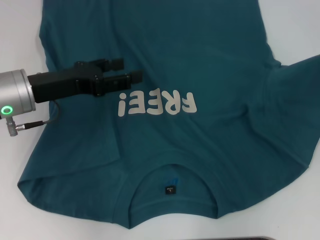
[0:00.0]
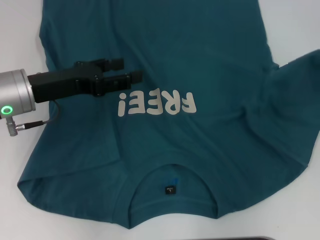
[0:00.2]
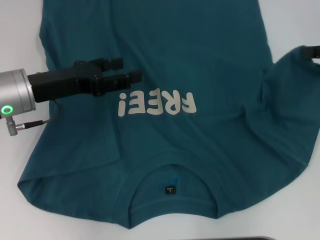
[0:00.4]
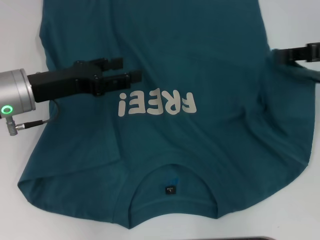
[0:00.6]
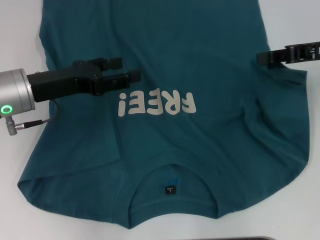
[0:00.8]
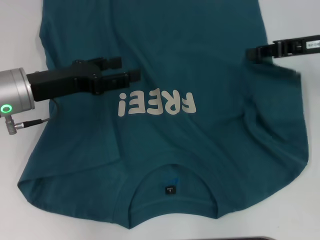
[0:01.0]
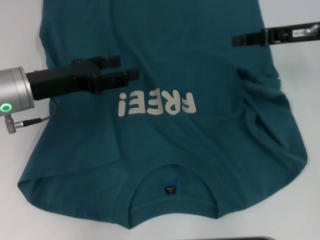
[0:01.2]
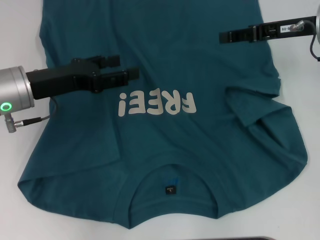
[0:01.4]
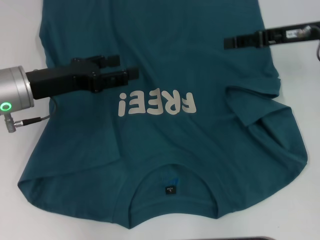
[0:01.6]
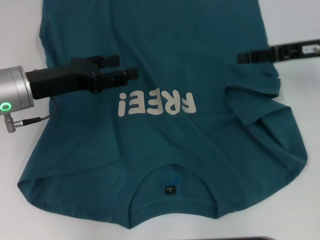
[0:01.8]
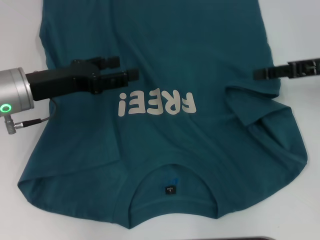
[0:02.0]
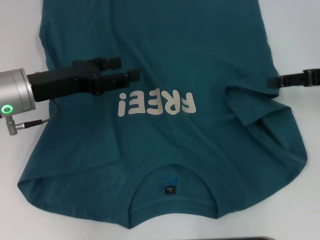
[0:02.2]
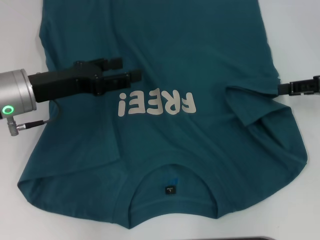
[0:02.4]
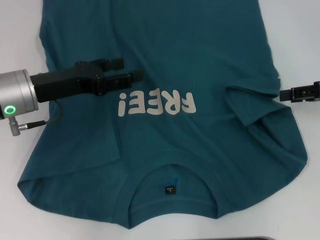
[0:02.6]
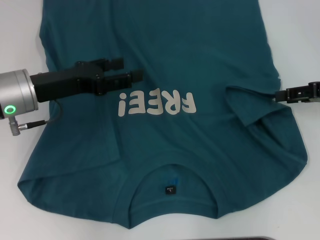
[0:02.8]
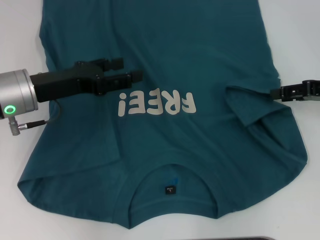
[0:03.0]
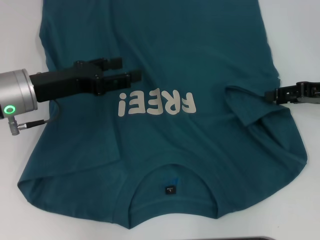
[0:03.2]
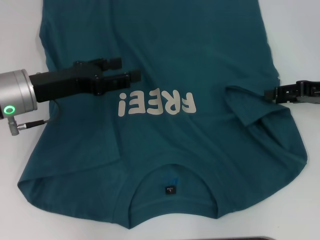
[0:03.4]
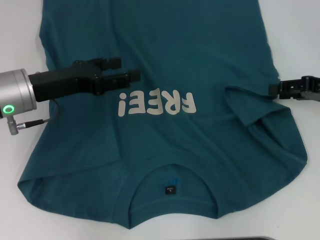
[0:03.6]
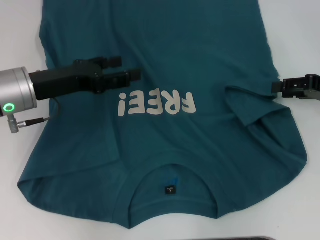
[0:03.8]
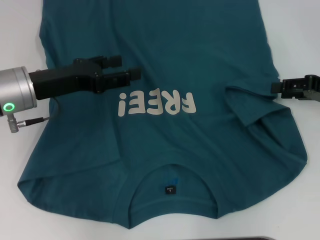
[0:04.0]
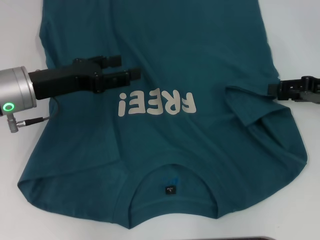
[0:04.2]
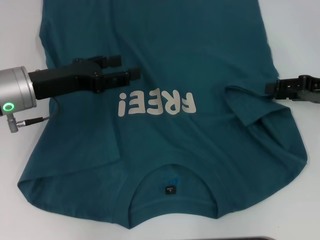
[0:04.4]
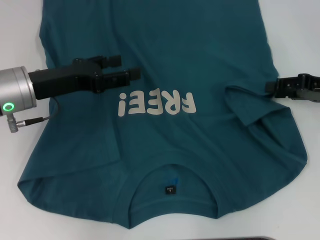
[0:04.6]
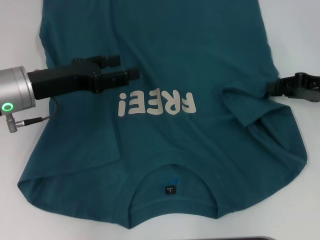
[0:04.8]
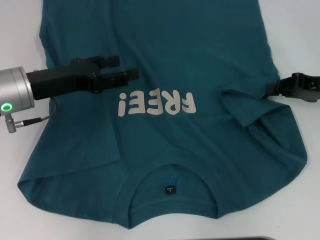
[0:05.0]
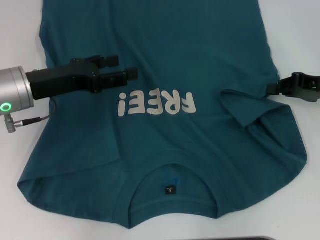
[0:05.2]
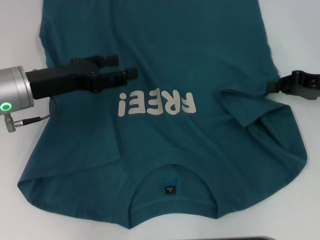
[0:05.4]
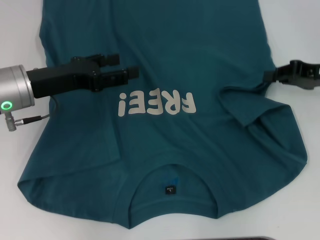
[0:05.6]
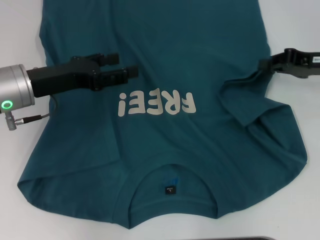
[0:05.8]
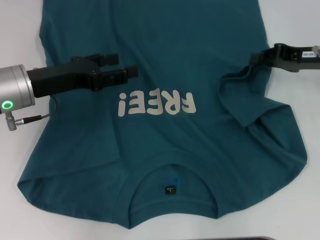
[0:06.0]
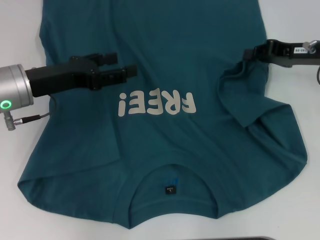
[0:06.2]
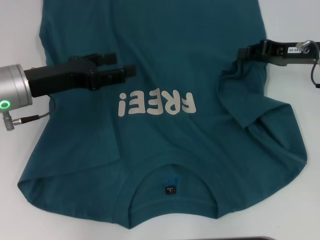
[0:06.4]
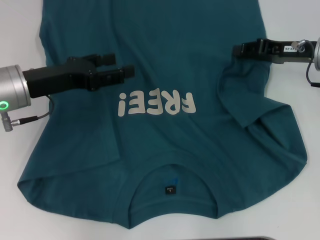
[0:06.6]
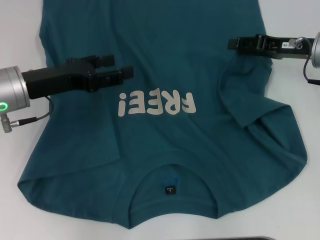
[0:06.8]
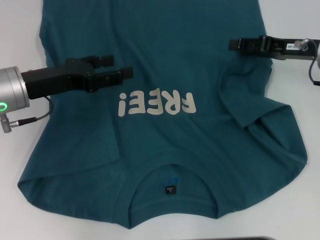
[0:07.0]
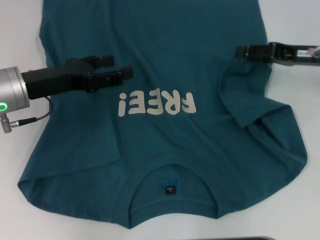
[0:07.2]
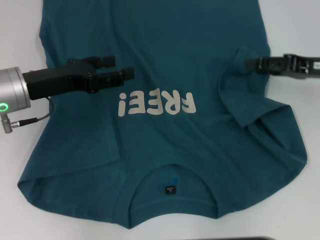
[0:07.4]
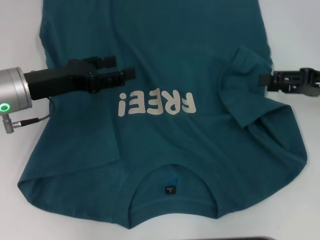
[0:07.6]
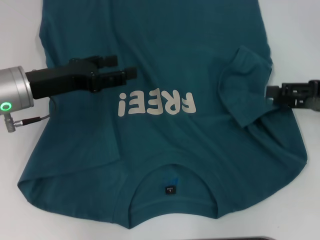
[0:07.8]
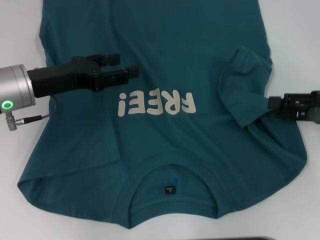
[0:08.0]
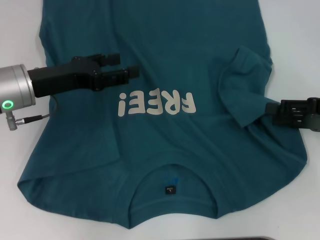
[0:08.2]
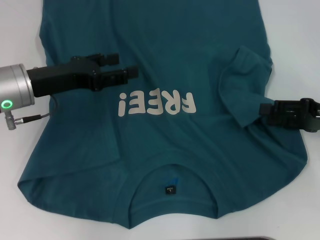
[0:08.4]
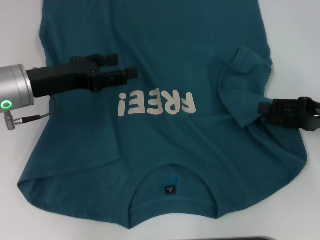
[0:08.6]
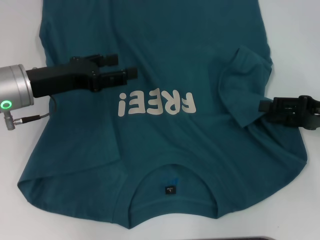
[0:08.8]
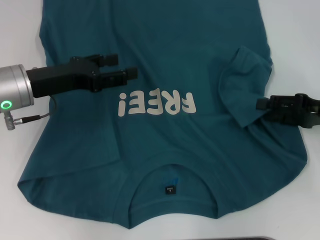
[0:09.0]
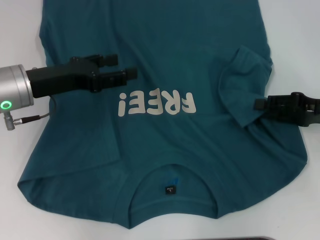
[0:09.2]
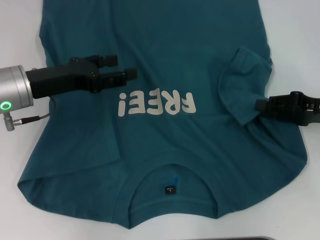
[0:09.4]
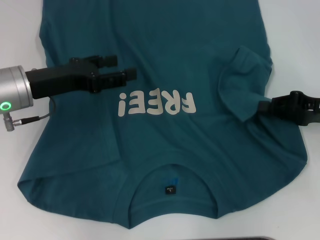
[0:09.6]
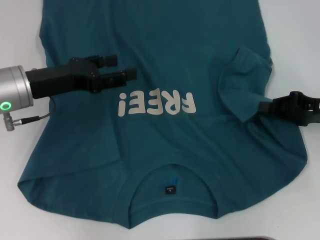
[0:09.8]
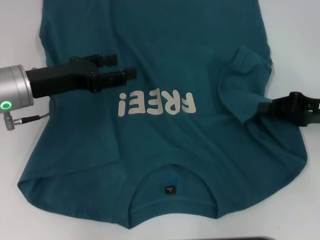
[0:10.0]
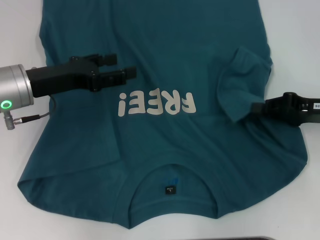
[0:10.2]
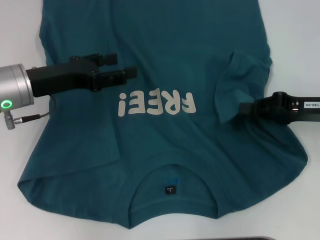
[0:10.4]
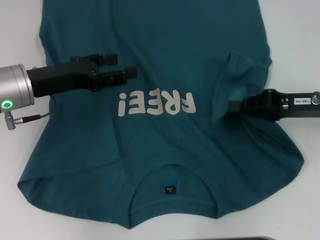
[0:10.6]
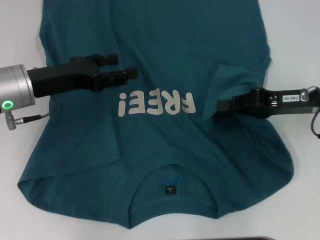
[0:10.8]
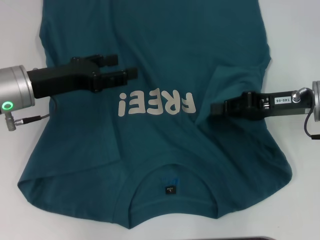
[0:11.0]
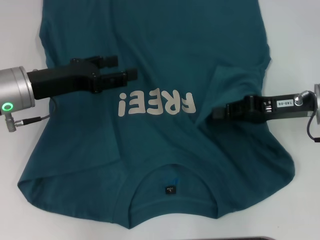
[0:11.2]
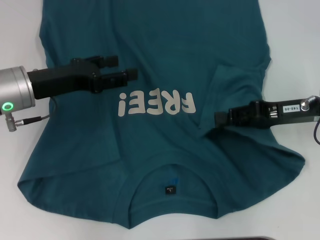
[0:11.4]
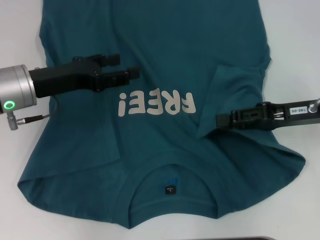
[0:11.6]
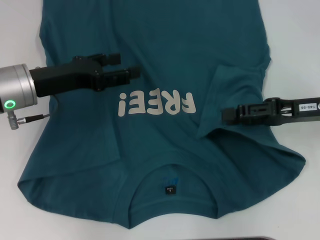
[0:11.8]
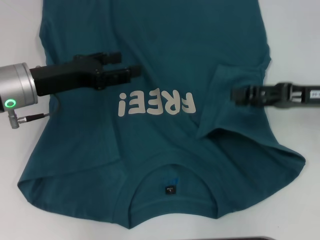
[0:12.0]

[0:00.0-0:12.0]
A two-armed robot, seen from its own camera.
Step, 0:00.0 to 0:11.6: Fold the bottom right sleeve to the right.
0:00.0 to 0:01.6: The right gripper goes about 15 cm to the left and forward, and opens up.
0:01.6 to 0:03.0: The right gripper heads to the right and backward, covering roughly 10 cm.
0:03.0 to 0:04.4: The grippers move only a little.
0:04.4 to 0:06.0: The right gripper moves some 5 cm, and closes up.
0:06.0 to 0:07.6: The right gripper heads backward, covering roughly 5 cm, and opens.
0:07.6 to 0:09.0: The grippers stay close to where they were, moving slightly.
0:09.0 to 0:10.4: The right gripper closes.
0:10.4 to 0:12.0: The right gripper opens up.

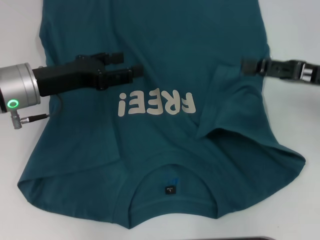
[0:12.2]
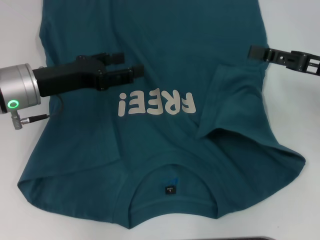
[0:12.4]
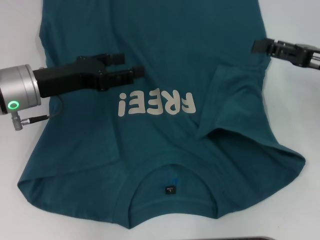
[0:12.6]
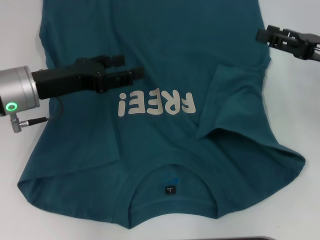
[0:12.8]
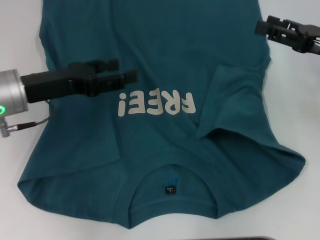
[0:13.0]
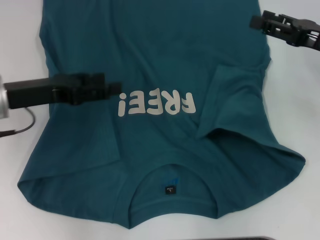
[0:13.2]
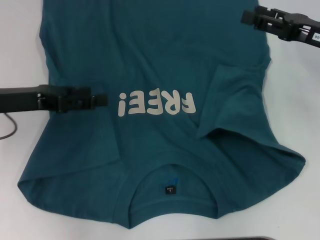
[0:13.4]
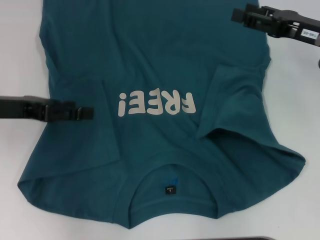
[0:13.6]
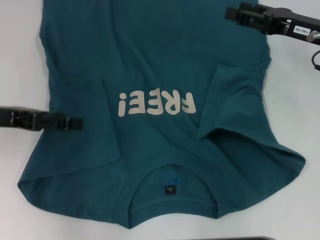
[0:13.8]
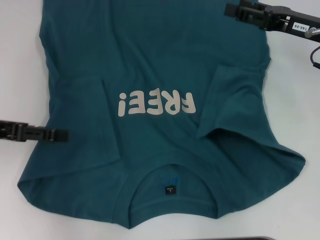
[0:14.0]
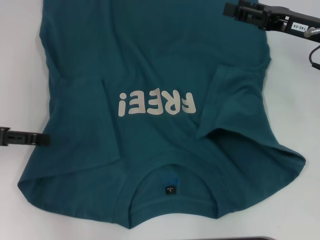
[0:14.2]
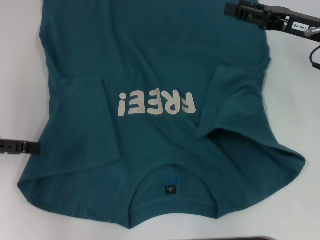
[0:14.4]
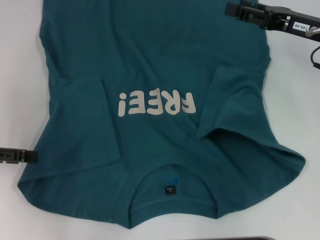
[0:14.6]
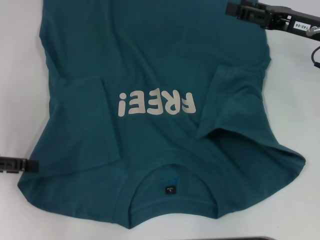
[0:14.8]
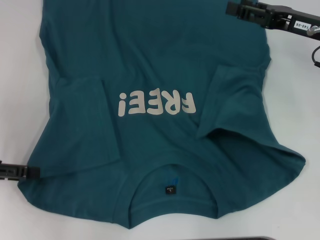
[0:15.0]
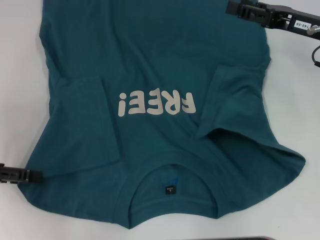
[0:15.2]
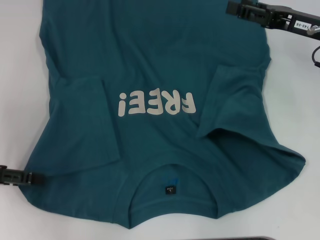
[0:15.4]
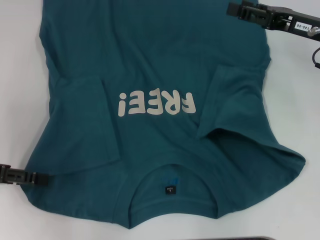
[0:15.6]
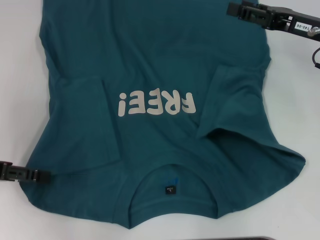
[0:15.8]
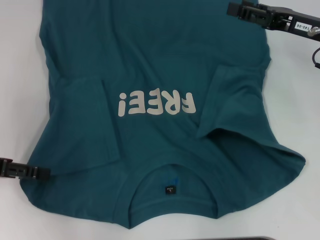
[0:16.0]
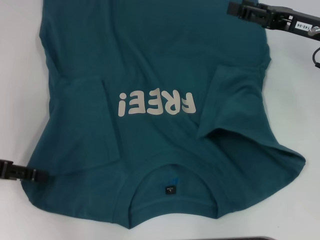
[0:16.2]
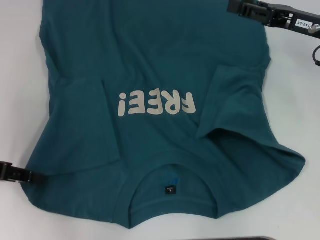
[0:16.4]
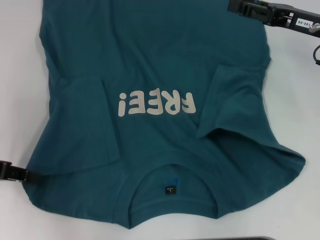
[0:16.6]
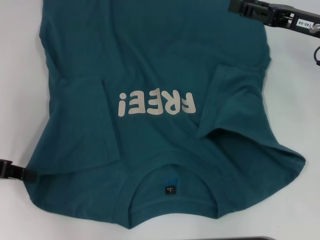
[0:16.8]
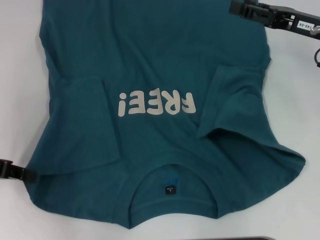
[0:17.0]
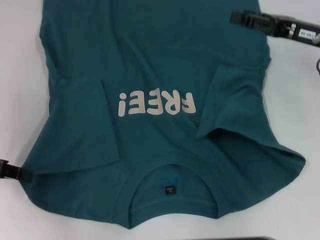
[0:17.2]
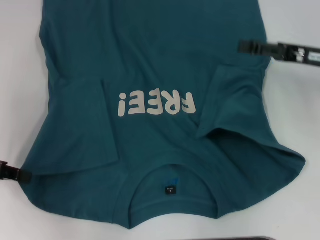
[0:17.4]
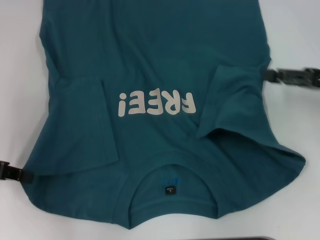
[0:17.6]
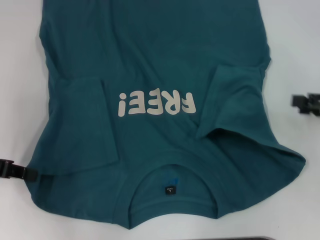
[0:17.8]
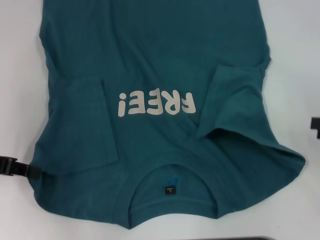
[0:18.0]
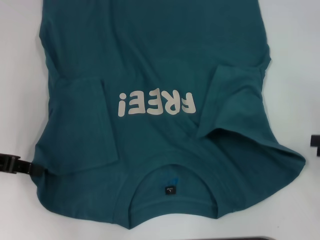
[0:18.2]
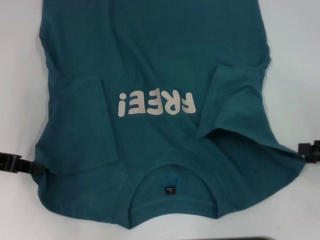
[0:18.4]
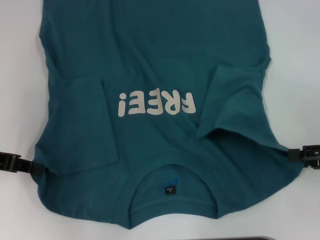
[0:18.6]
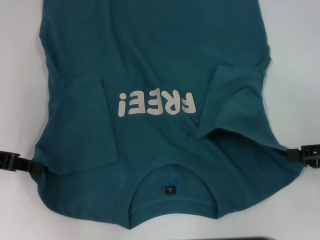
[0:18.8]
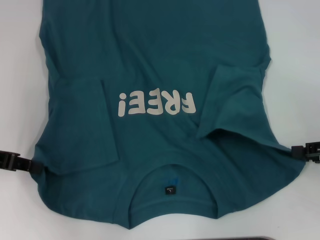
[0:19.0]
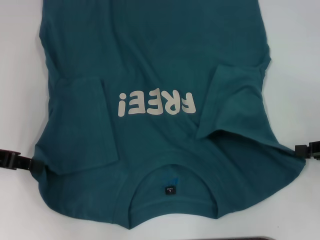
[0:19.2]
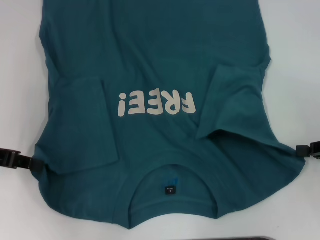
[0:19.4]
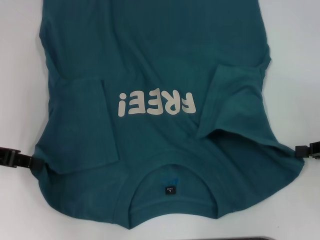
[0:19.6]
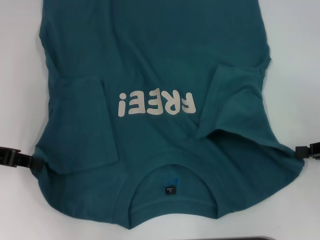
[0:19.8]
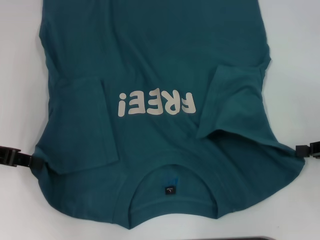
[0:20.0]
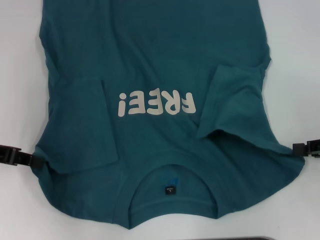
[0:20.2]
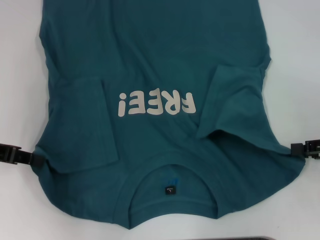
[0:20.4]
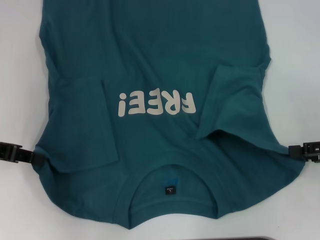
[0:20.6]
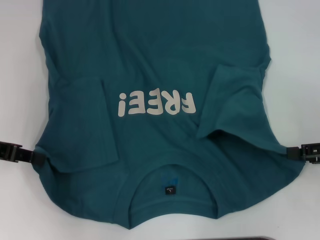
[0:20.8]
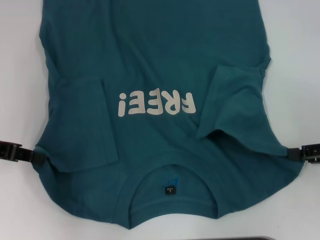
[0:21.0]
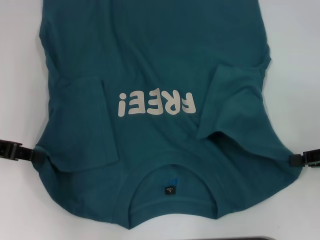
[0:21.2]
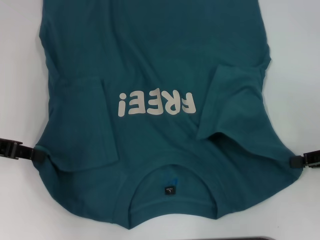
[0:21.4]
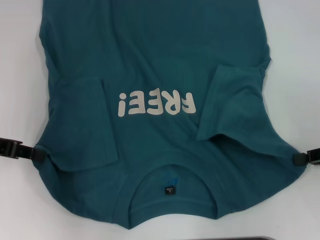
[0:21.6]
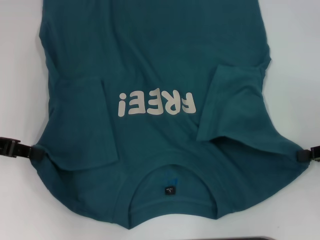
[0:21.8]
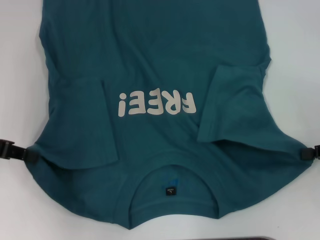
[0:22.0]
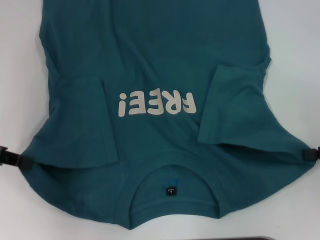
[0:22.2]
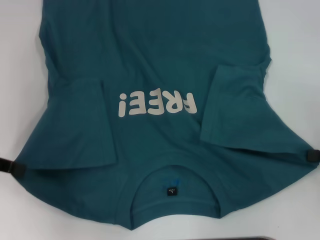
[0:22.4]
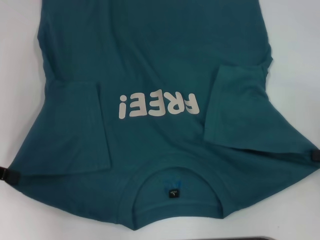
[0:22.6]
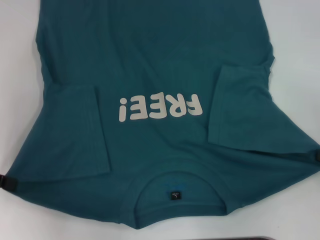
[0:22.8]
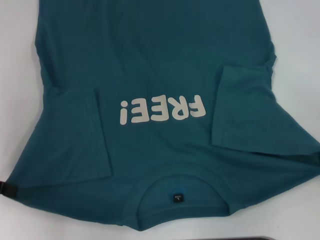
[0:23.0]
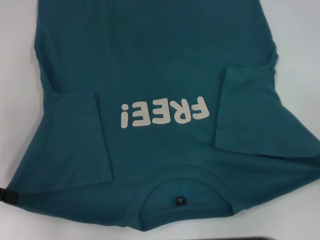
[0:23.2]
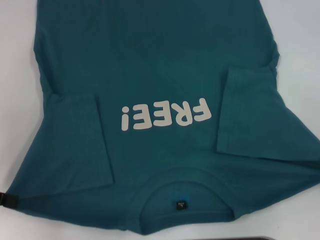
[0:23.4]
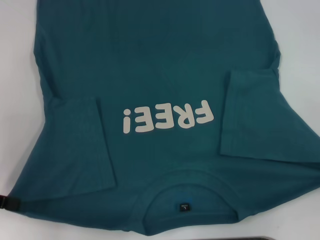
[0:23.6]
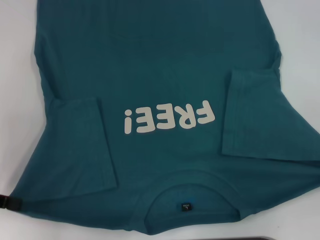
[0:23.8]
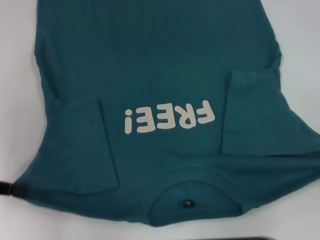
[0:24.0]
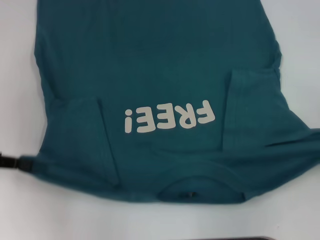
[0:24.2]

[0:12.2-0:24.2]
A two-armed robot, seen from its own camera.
Step, 0:12.2 to 0:17.6: Grab the bottom left corner with your left hand.
Step, 0:17.8 to 0:22.2: Grab the bottom right corner with your right hand.
0:12.2 to 0:13.8: The right gripper travels forward by roughly 5 cm. The left gripper heads to the left, covering about 10 cm.
0:13.8 to 0:15.2: The left gripper shifts about 5 cm to the left.
0:16.6 to 0:18.2: The right gripper heads backward and to the right, covering roughly 20 cm, while the left gripper closes its fingers.
0:18.2 to 0:19.8: The right gripper closes.
0:19.8 to 0:21.2: The right gripper opens its fingers.
0:21.2 to 0:22.6: The right gripper closes up.
0:22.6 to 0:24.2: There are only small adjustments of the grippers.
